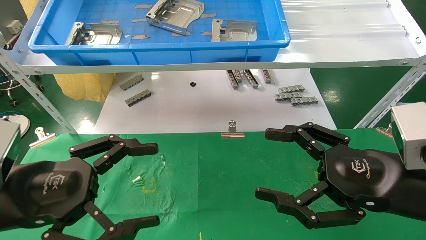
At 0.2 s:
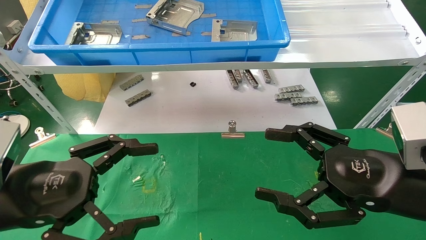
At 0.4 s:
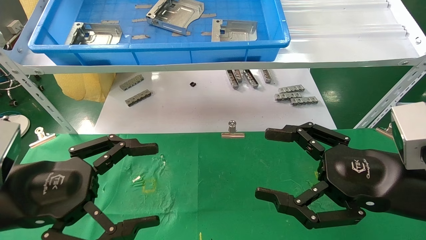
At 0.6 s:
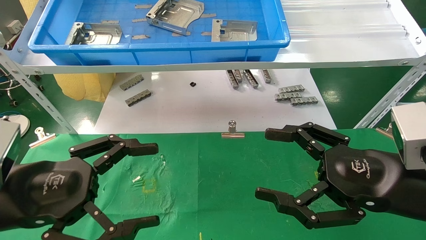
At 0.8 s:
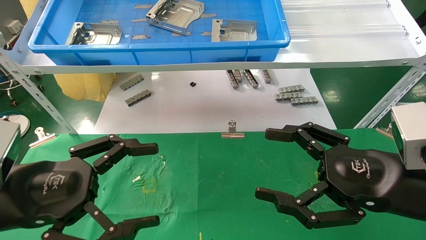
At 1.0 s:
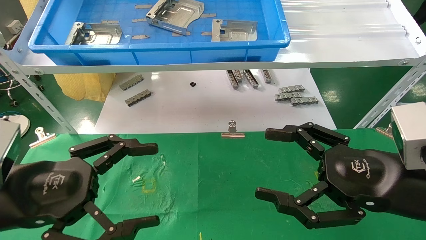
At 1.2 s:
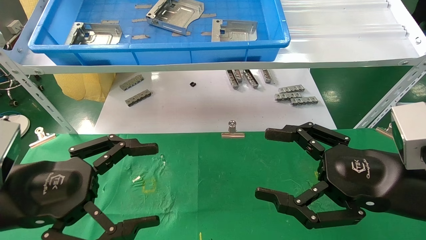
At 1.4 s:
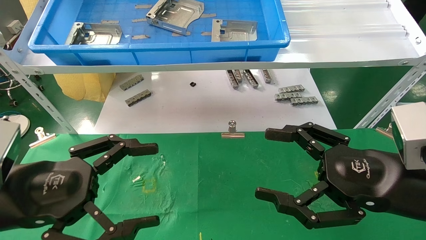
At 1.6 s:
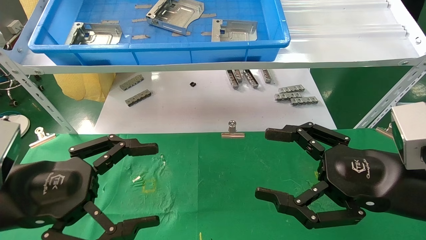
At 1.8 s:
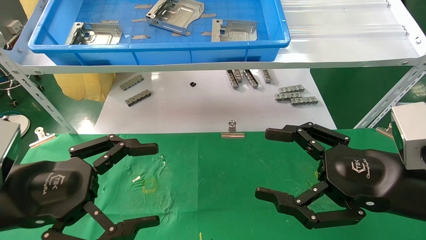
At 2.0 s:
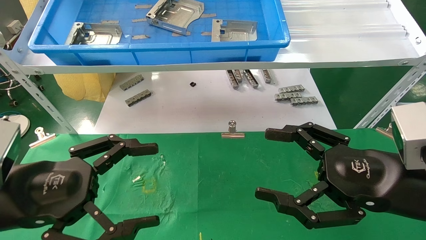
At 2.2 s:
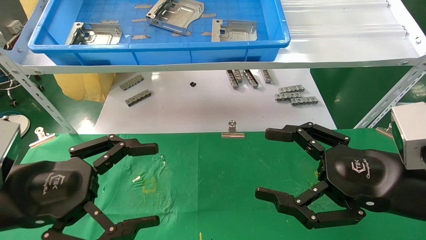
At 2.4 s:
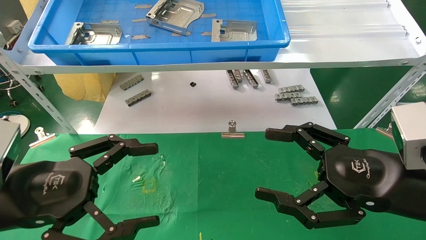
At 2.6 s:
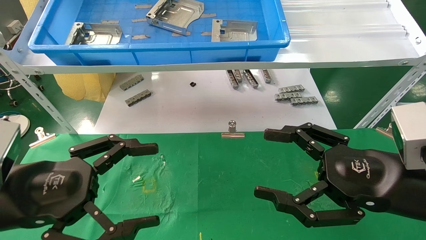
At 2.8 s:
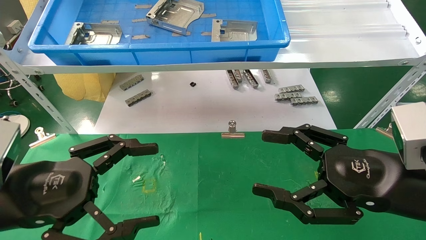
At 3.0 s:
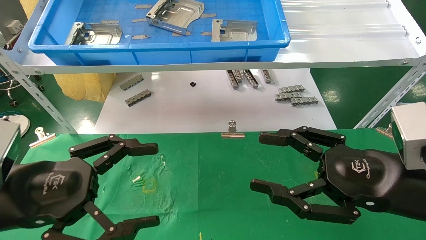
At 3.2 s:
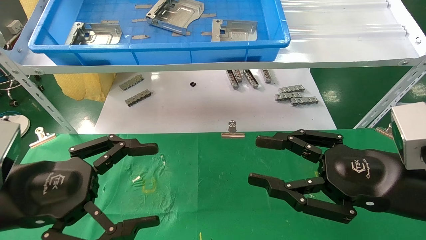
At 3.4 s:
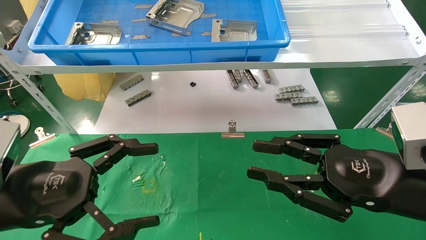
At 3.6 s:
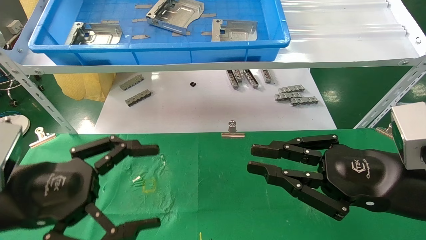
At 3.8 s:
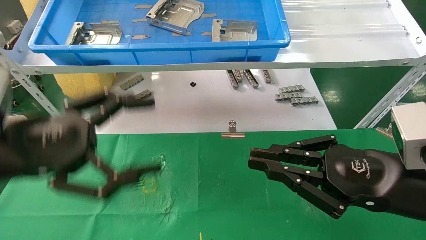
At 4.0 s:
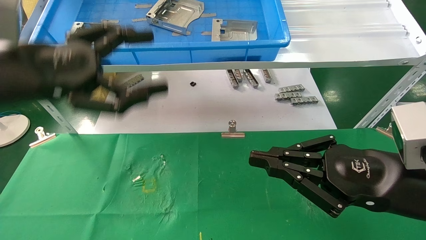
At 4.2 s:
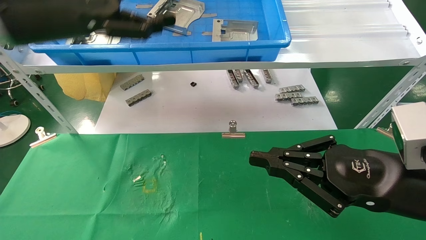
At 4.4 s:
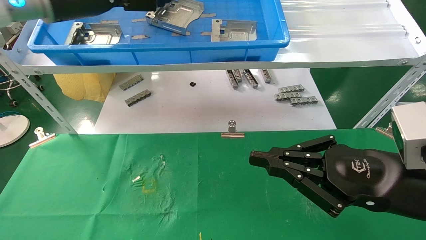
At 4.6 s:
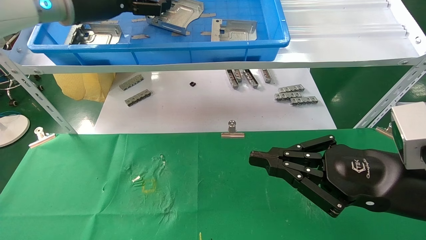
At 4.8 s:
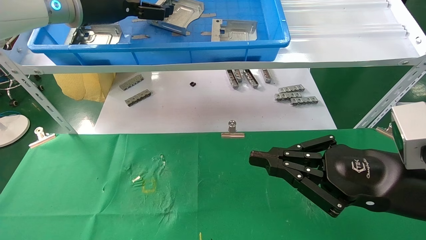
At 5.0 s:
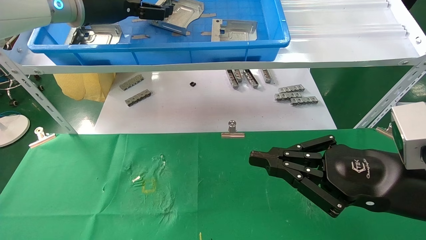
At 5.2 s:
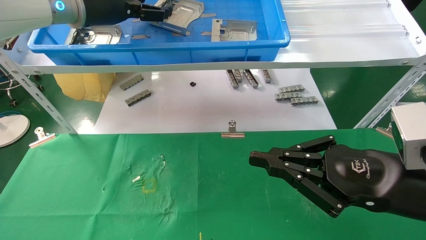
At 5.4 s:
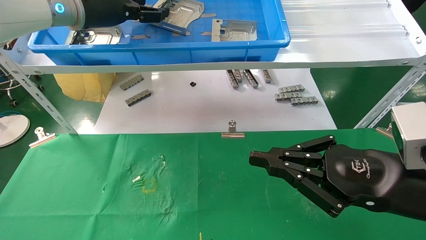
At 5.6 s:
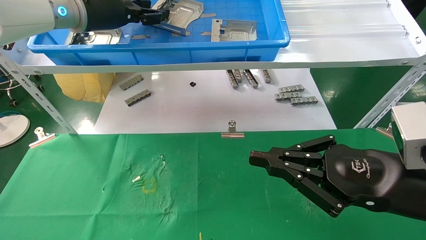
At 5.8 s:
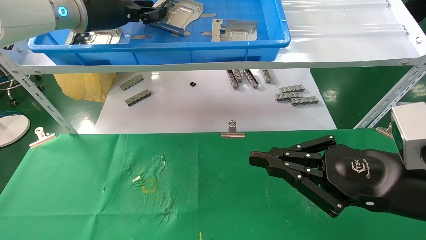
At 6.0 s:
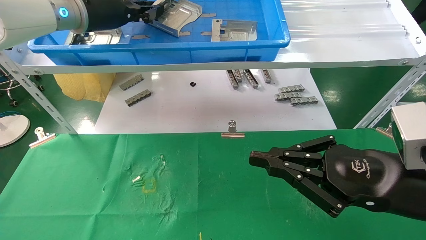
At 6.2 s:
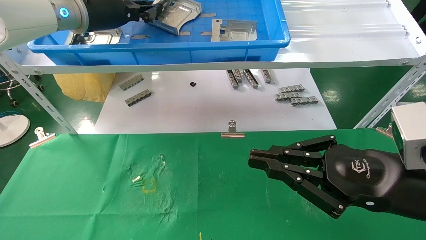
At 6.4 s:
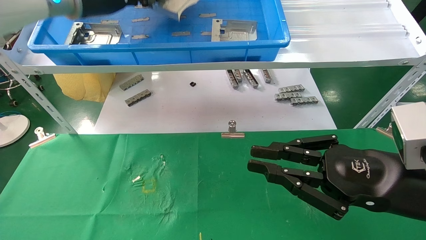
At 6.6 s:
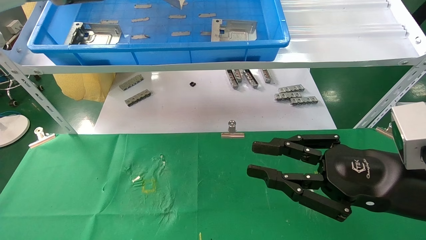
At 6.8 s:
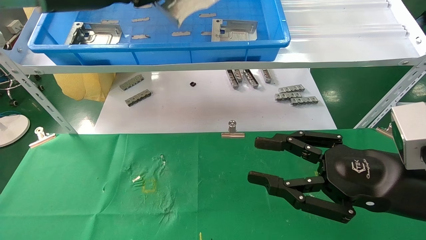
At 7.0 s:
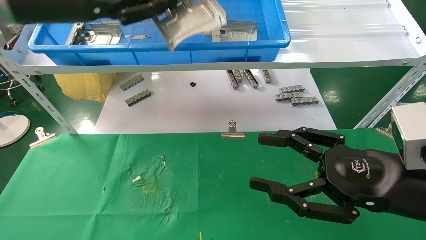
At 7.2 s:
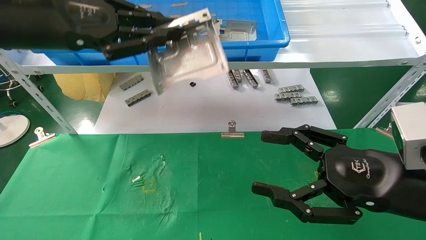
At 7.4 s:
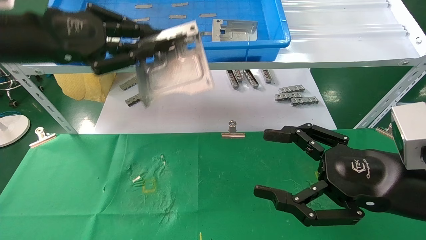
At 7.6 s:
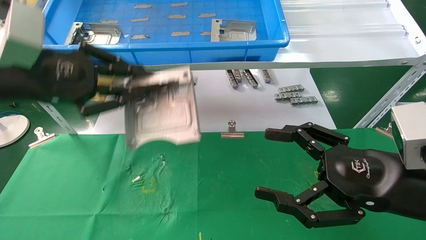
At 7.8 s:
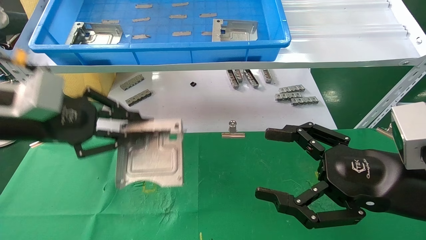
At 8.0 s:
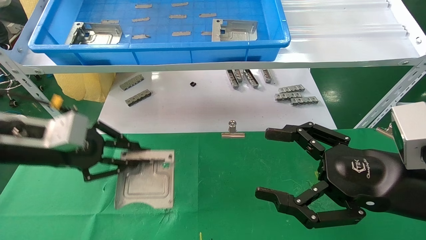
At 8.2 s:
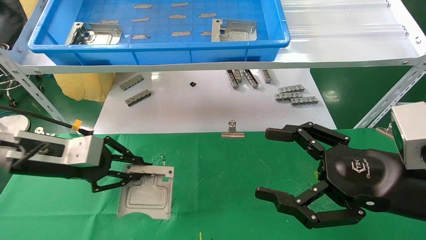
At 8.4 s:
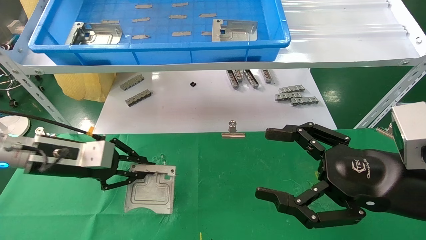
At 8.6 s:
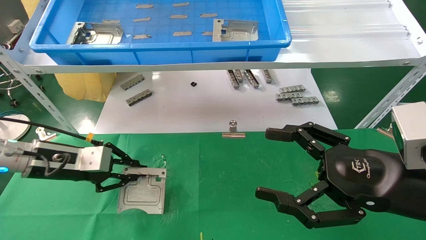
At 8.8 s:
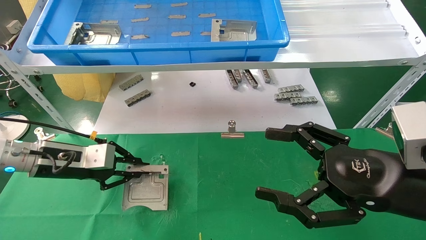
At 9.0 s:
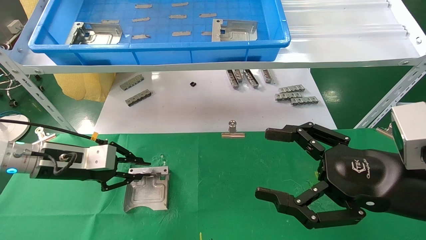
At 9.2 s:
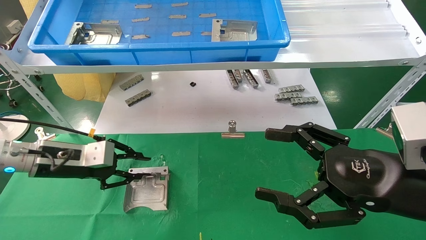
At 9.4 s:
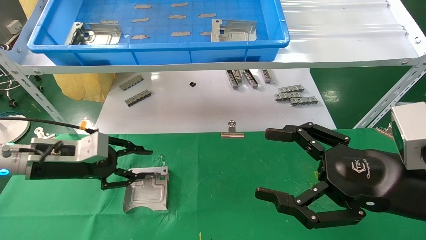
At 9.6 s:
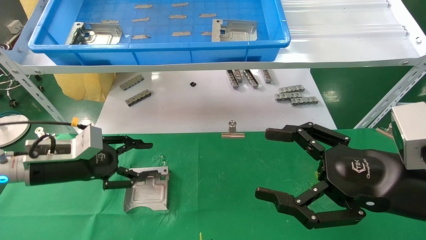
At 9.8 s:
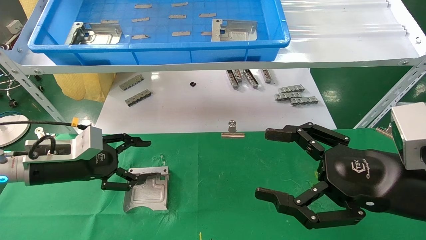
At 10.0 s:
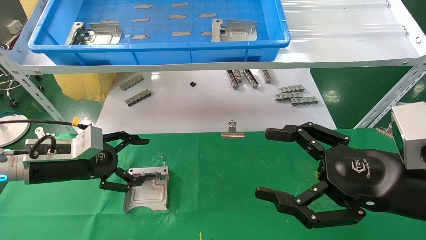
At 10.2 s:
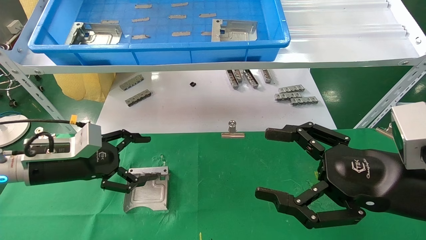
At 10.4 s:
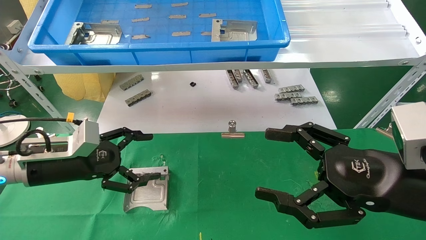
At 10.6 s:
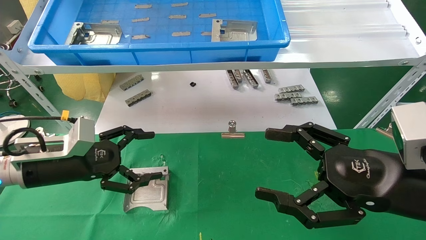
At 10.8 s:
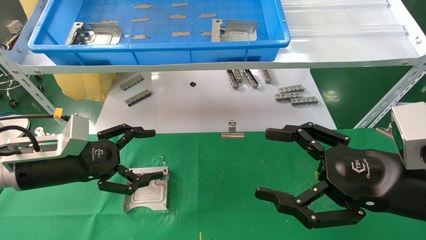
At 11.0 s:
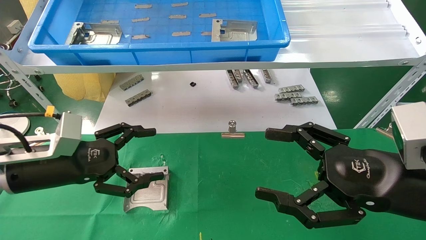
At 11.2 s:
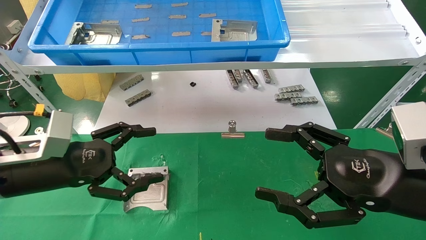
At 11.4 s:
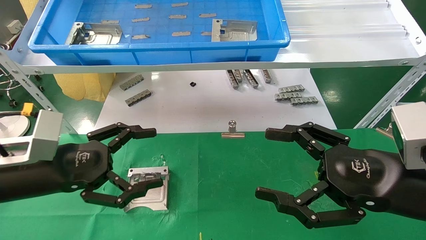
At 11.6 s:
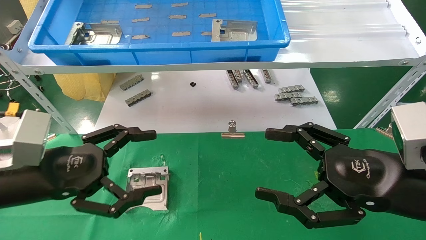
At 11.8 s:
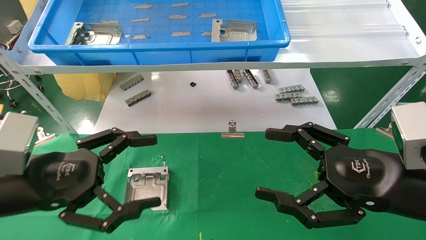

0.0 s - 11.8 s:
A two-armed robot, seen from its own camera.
Task of the whole recording: use the mechanical arm to pick up the parts and place them on the table.
Step, 4.0 s - 6.0 s: Pick up the hard drive bracket from the feeding area.
Step, 6.2 s - 9.6 s: Place the hard drive bracket into the box.
0.0 s - 3.0 s: Neither gripper changes place.
3.0 s - 4.4 s: The left gripper goes about 30 cm upward and forward, while the right gripper closes its fingers.
4.4 s - 6.0 s: The left gripper changes place by approximately 5 cm, and closes its fingers.
6.0 s - 7.4 s: The left gripper travels backward by some 15 cm, while the right gripper opens its fingers.
7.4 s - 8.8 s: The left gripper shifts roughly 20 cm downward.
8.8 s - 10.4 s: The left gripper opens.
10.4 s - 11.8 s: The left gripper goes approximately 10 cm backward.
